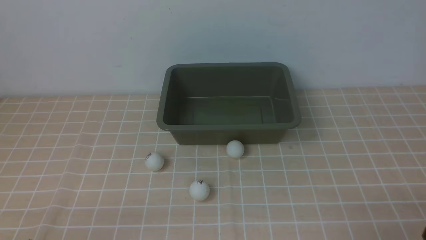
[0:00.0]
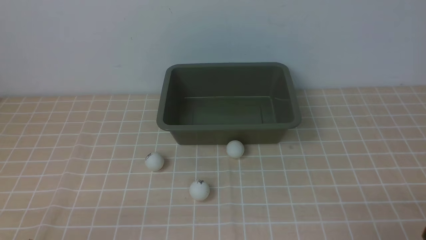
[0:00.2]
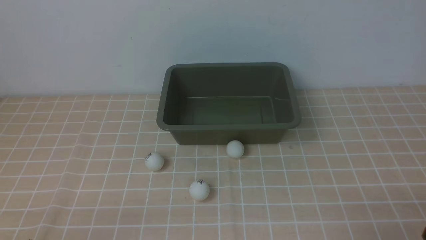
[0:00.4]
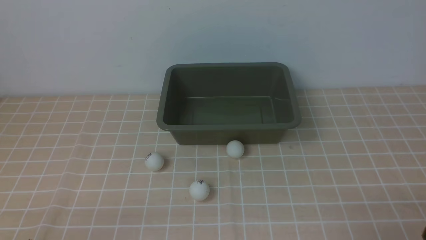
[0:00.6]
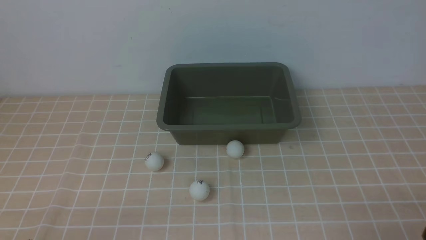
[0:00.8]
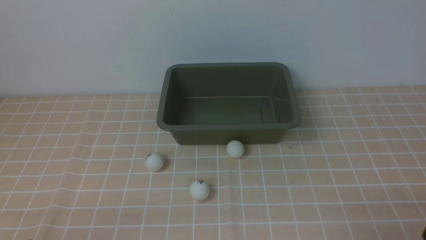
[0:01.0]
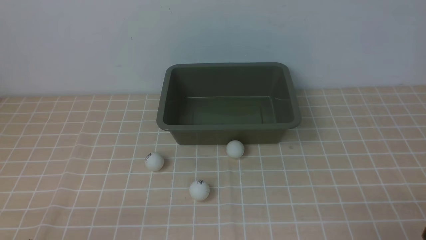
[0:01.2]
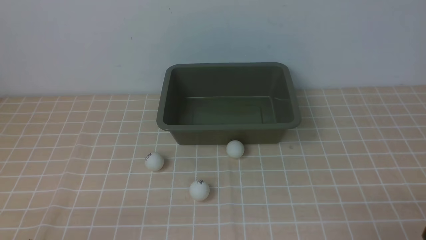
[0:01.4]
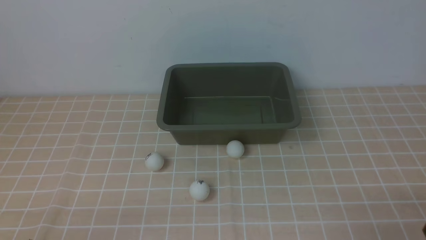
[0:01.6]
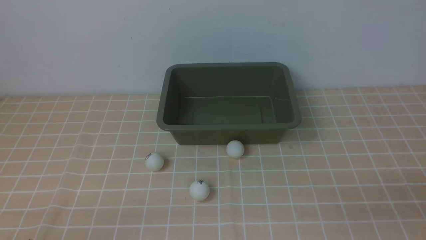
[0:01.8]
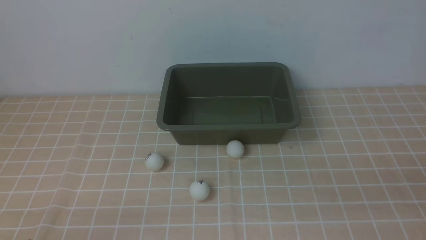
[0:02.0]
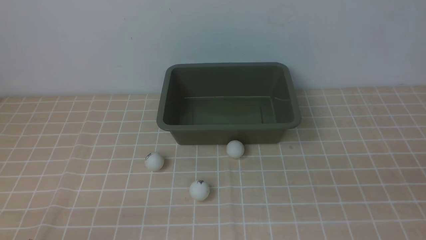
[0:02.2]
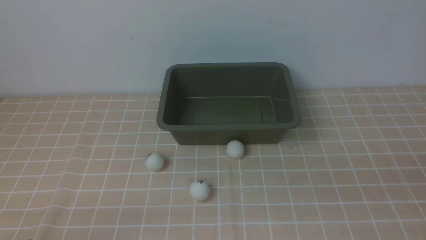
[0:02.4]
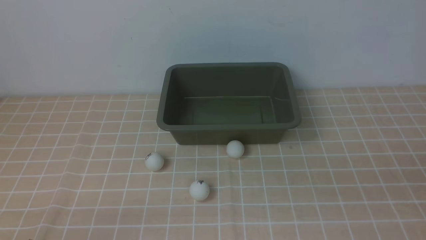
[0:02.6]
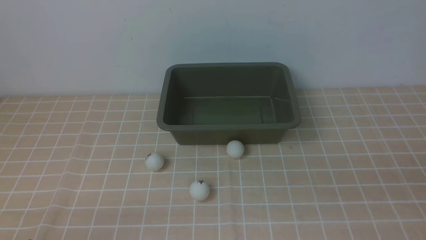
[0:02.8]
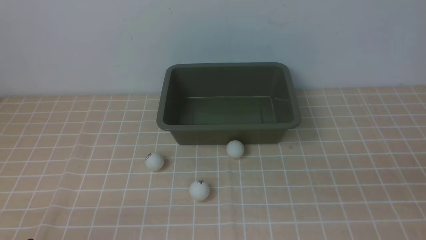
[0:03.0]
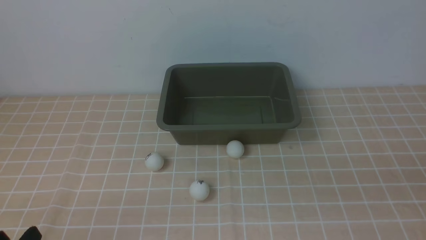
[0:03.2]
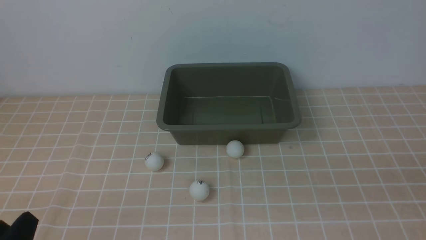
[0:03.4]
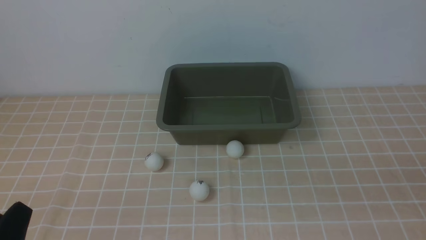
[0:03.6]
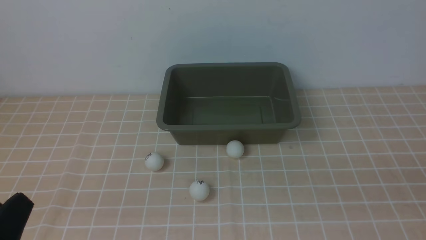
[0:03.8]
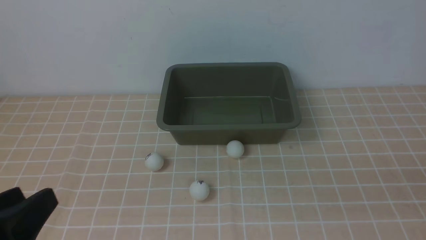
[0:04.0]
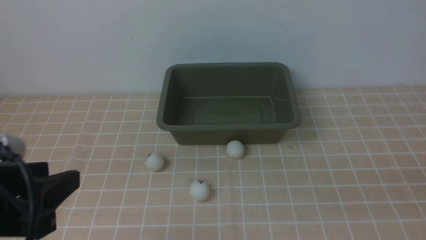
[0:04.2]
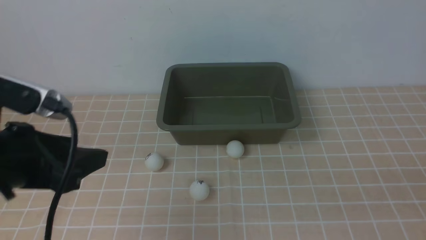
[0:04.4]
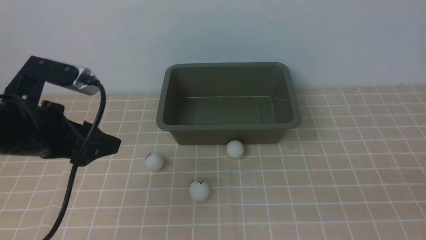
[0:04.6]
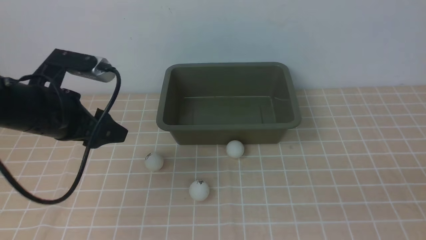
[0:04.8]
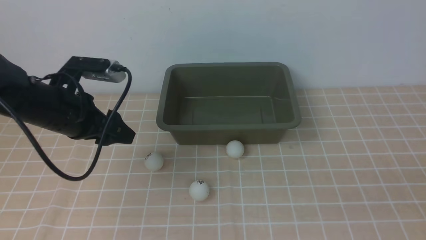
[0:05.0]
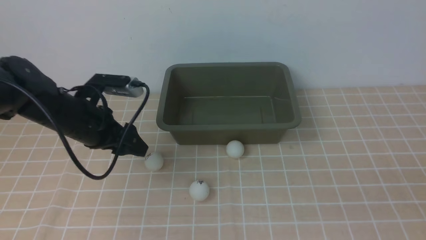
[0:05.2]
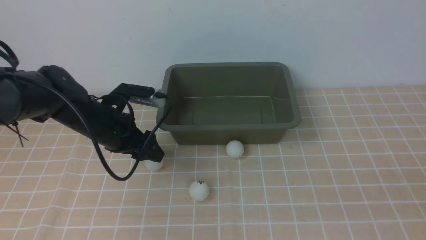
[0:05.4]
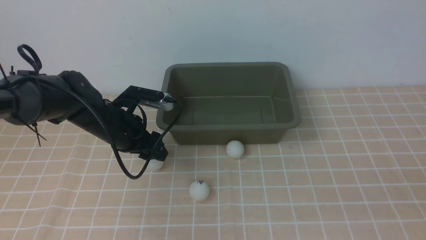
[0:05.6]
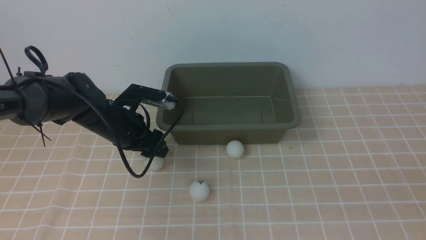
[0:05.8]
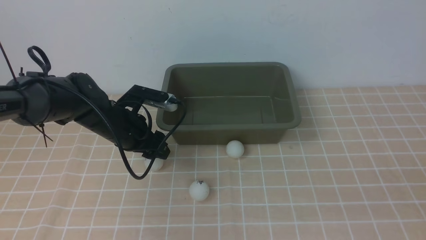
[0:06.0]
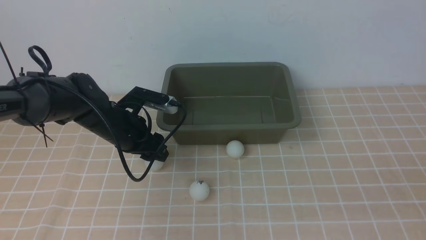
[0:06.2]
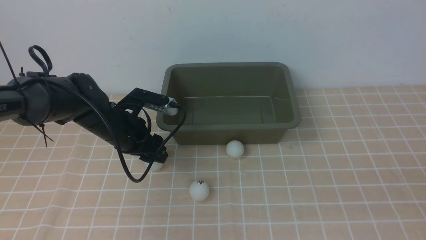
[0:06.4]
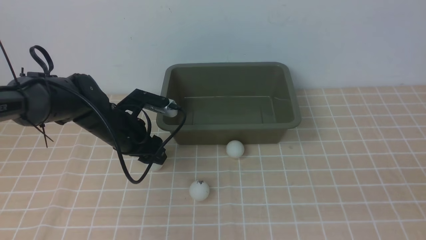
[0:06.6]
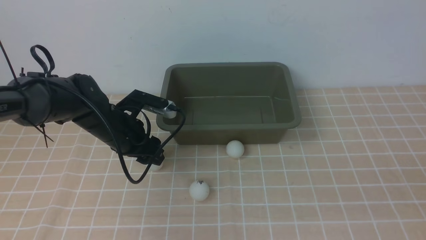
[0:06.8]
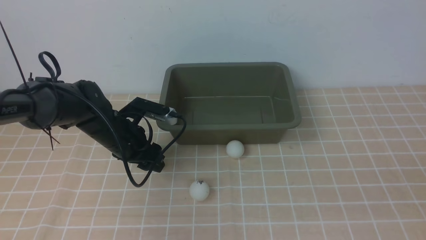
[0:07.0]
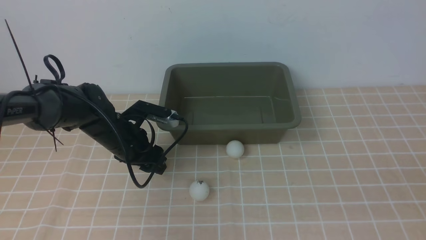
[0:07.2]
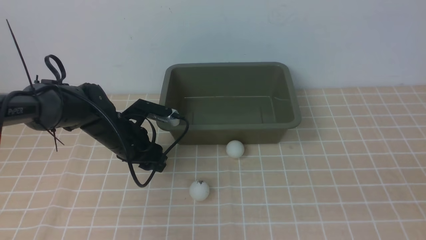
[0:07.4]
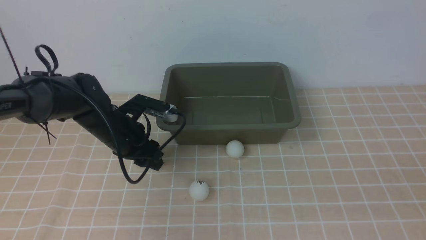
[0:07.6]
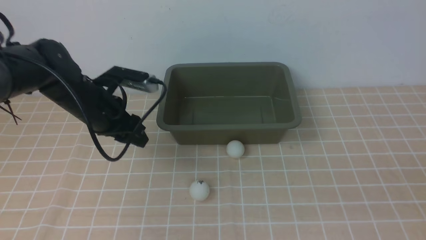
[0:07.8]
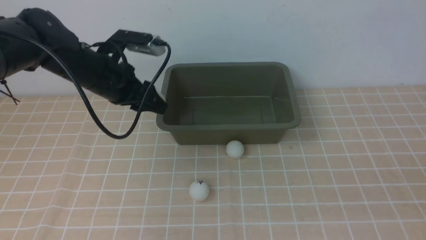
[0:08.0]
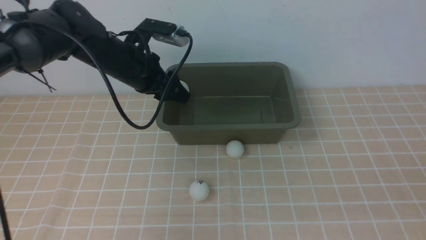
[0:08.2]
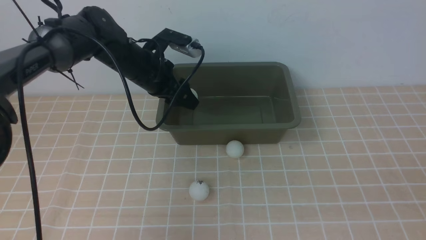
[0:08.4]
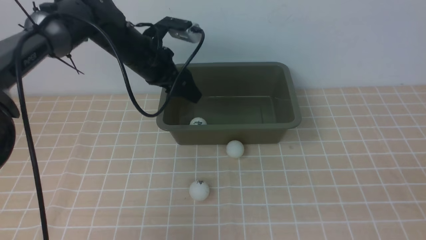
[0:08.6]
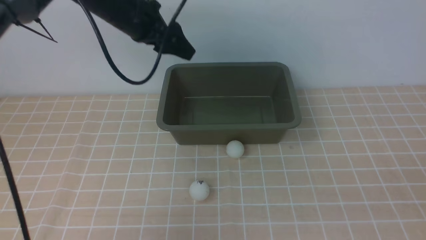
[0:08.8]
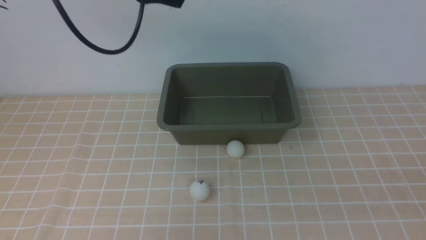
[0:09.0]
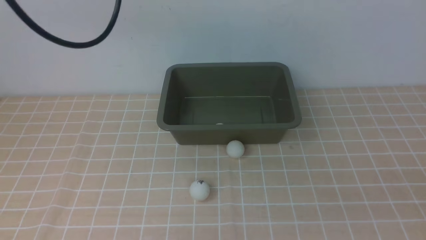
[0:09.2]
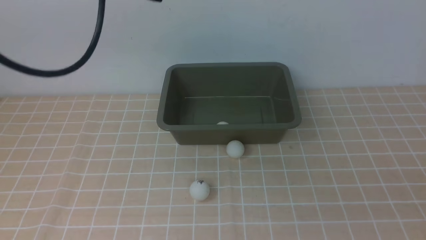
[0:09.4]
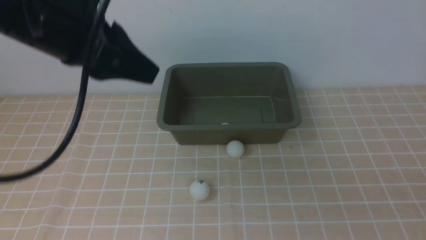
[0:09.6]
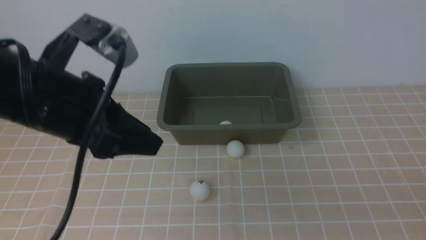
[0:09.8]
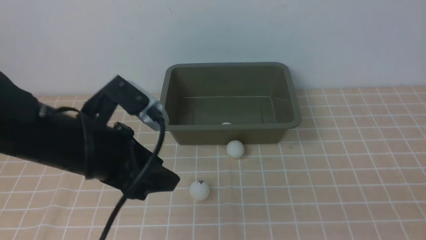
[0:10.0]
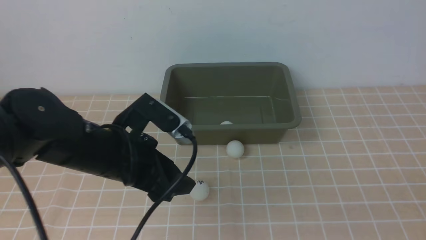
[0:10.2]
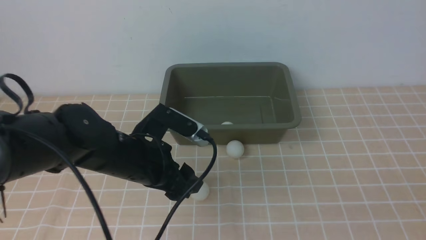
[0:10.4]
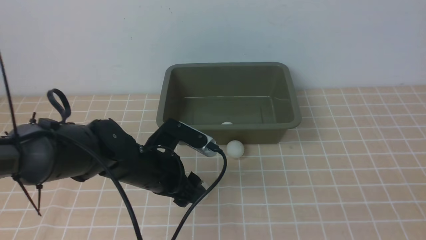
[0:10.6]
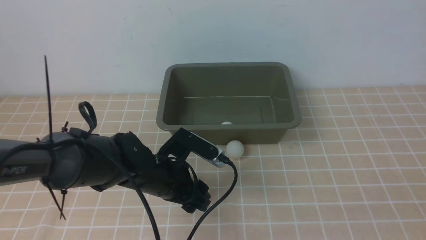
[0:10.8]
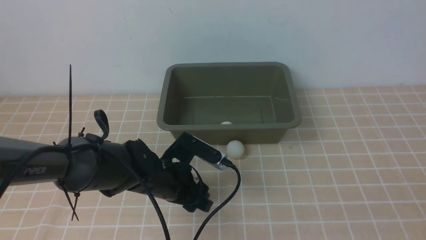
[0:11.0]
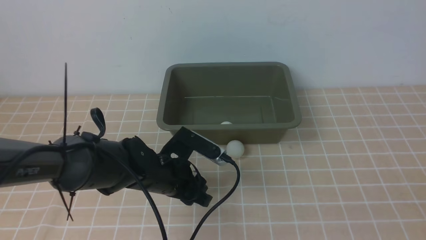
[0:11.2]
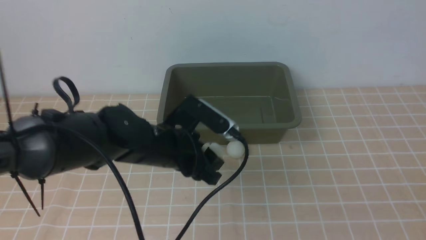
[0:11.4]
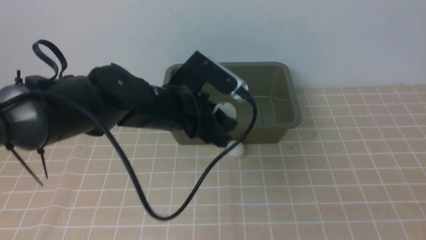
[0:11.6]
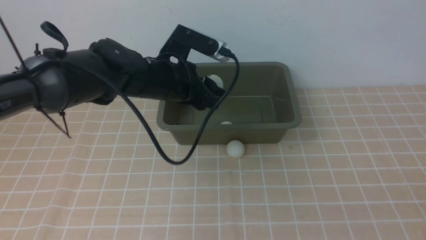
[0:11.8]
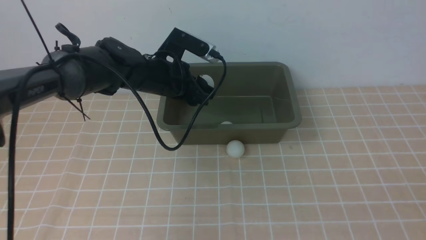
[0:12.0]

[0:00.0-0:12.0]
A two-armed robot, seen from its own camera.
Step, 0:00.0 to 0:07.0: use the left arm to clamp the table tennis ball closest to it.
Step, 0:07.2 to 0:09.0: use the left arm to put the table tennis ball into the box.
Step, 0:09.2 to 0:11.8: use the left arm to clamp the table tennis ball closest to it.
0:03.0 to 0:04.4: The left gripper shifts approximately 20 cm upward and forward, and opens its fingers.
0:04.4 to 0:06.0: The left gripper travels forward and downward by some 25 cm.
0:06.0 to 0:07.6: The left gripper closes up.
0:07.6 to 0:09.0: The left gripper heads upward, covering about 25 cm, and opens and closes again.
0:09.0 to 0:10.4: The left gripper moves downward and backward, roughly 25 cm, and opens up.
0:10.4 to 0:12.0: The left gripper travels forward by some 15 cm, and closes its fingers.

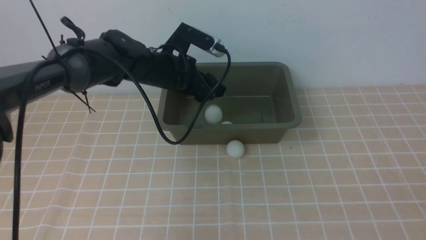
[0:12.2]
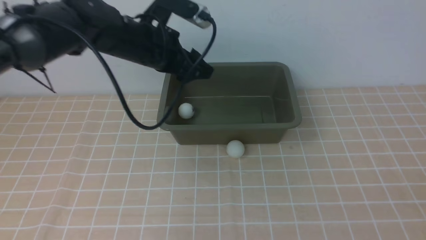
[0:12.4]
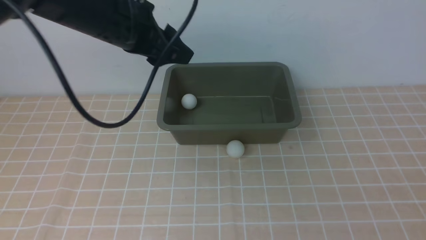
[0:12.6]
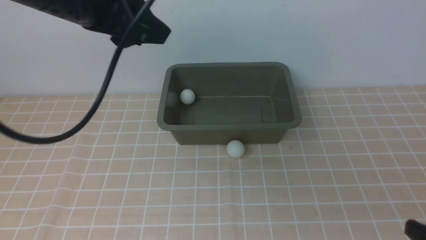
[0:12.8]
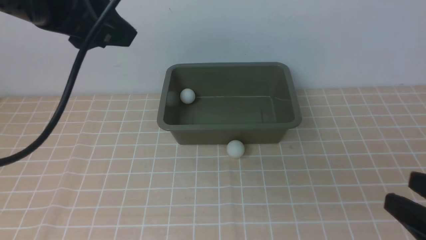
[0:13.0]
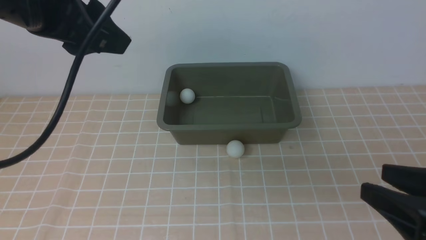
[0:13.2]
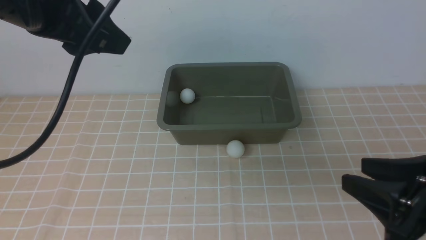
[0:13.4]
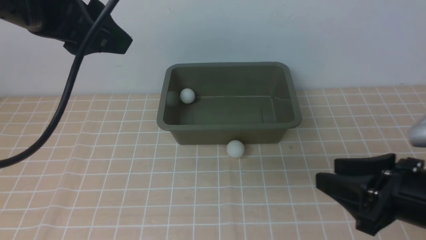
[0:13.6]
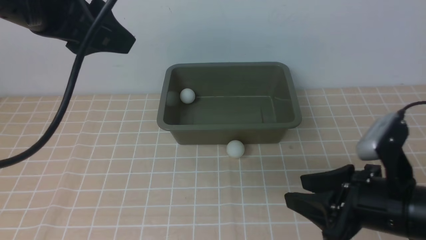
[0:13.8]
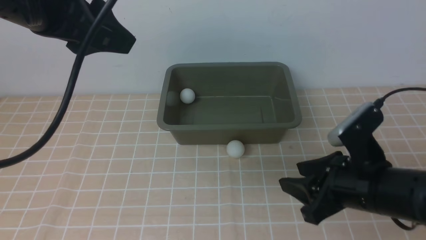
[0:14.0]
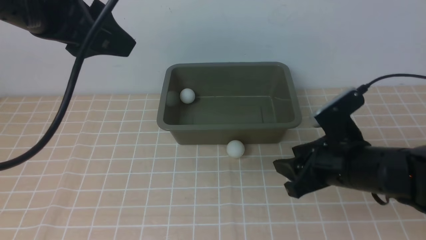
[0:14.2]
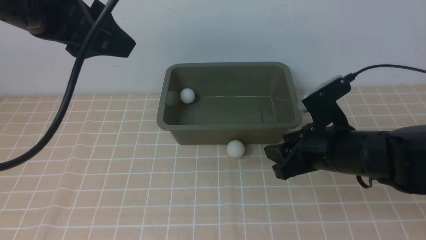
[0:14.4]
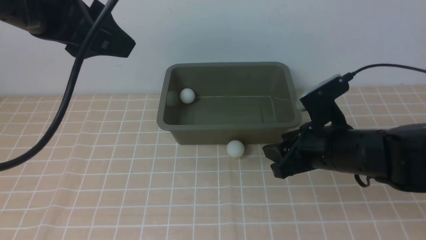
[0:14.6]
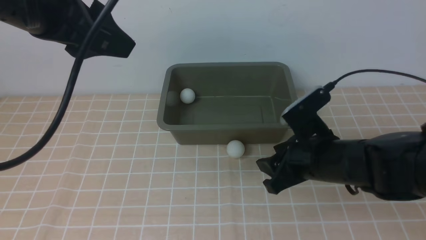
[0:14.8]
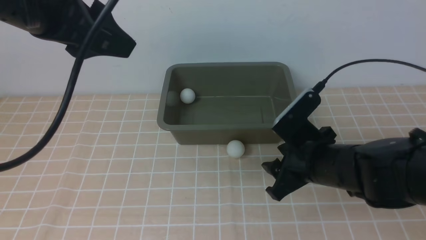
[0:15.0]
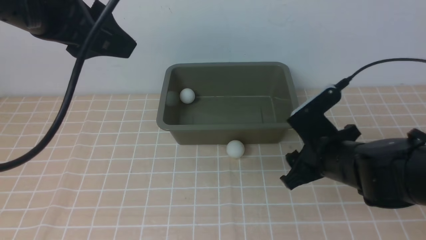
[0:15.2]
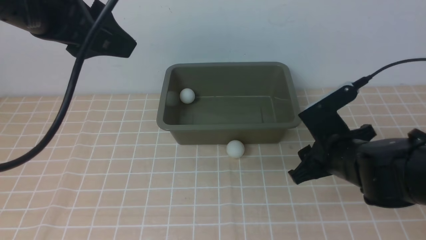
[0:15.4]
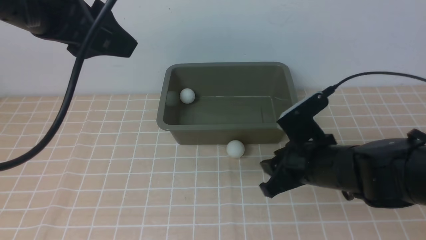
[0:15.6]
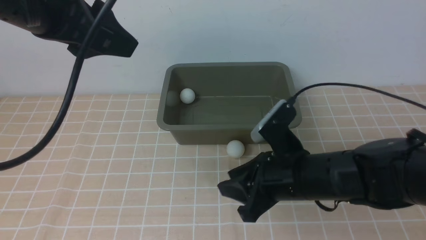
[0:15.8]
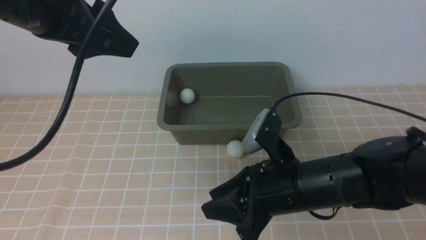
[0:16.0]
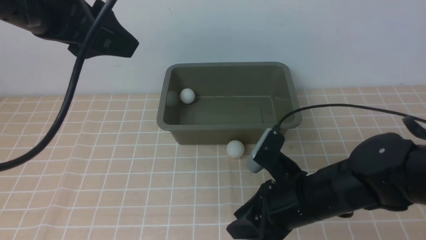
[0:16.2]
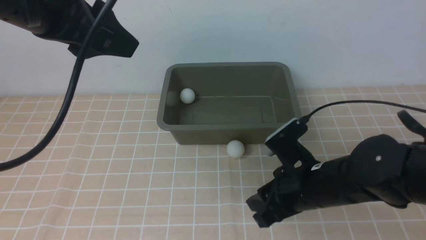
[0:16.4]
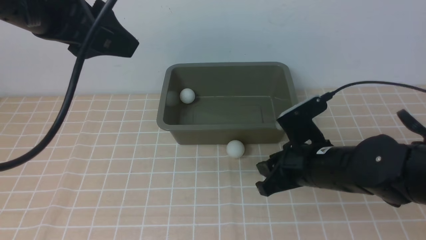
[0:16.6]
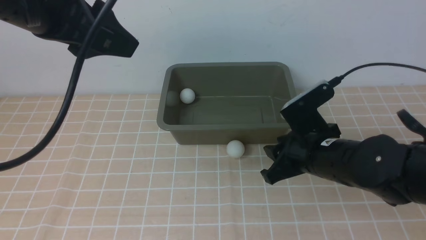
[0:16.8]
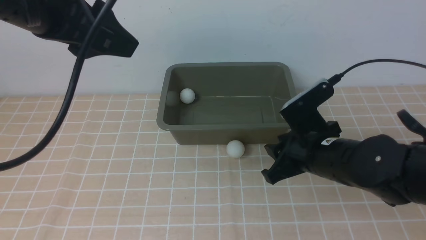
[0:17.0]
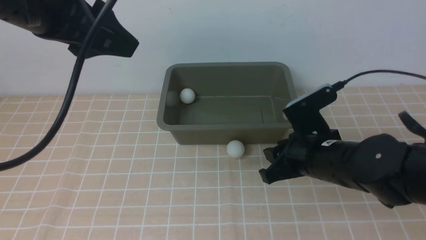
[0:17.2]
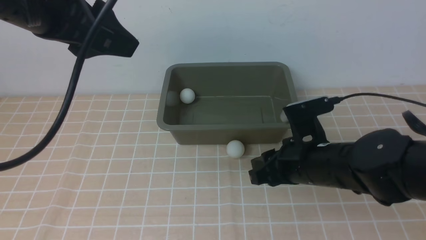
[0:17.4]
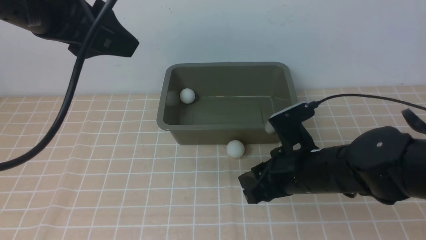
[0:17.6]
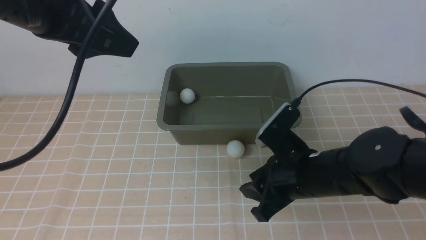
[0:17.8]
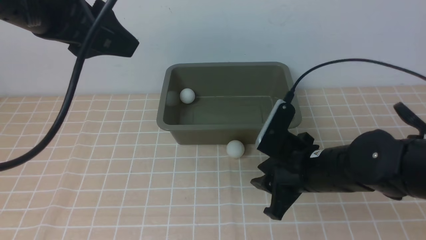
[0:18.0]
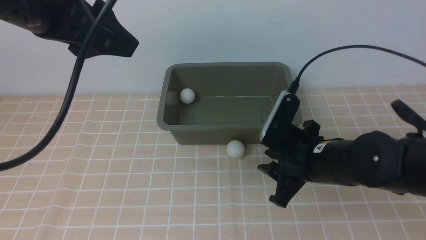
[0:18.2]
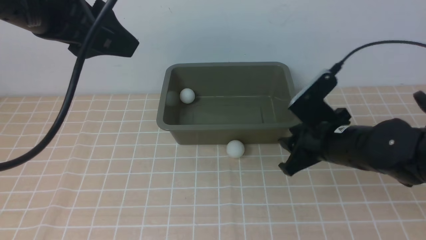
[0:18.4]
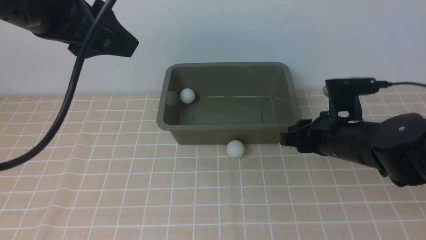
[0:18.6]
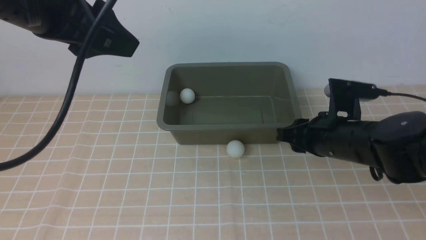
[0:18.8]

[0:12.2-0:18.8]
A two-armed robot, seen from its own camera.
0:12.2 to 0:13.8: The left gripper heads upward and backward, covering roughly 25 cm, and closes up, while the right gripper travels forward and to the left by some 20 cm.
0:13.8 to 0:15.4: The right gripper moves forward and to the left, roughly 10 cm.
